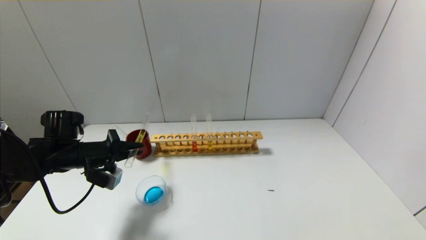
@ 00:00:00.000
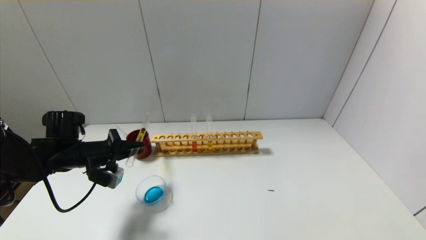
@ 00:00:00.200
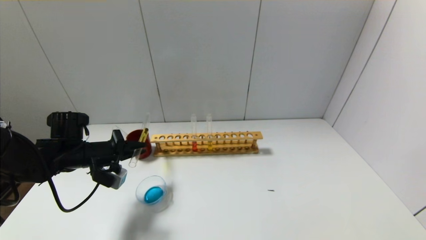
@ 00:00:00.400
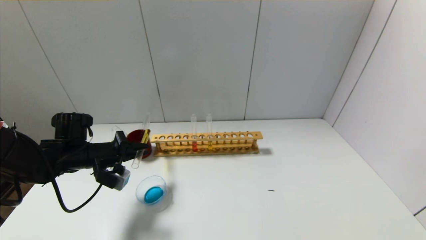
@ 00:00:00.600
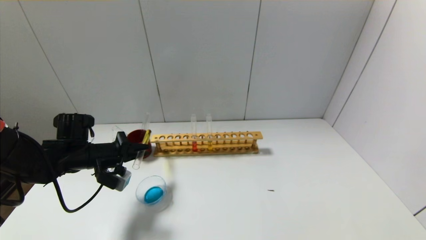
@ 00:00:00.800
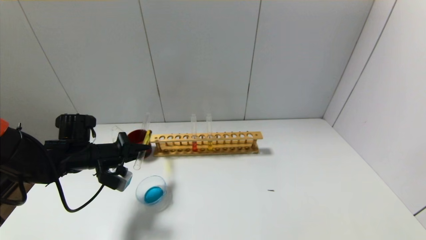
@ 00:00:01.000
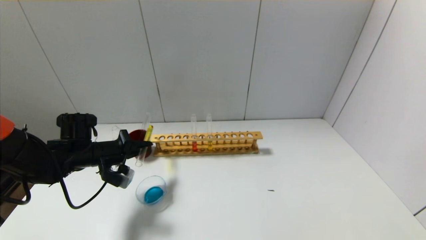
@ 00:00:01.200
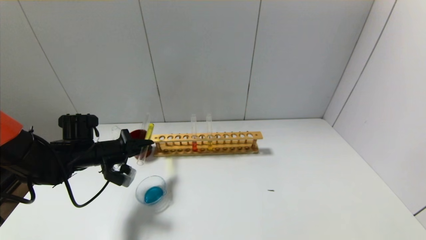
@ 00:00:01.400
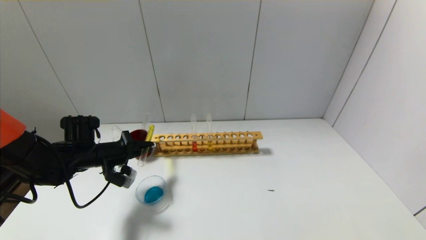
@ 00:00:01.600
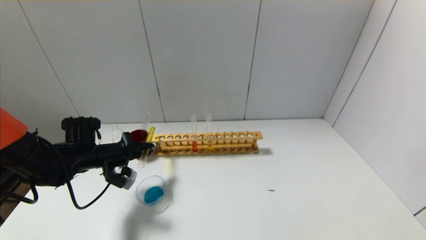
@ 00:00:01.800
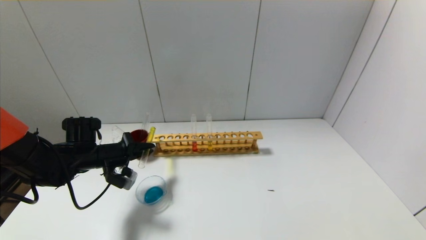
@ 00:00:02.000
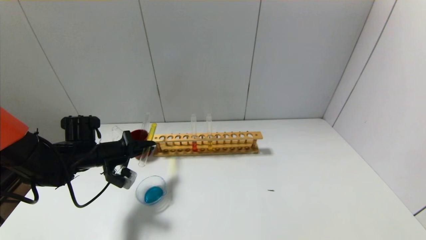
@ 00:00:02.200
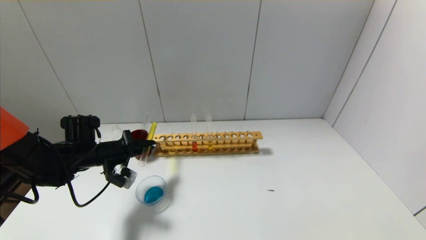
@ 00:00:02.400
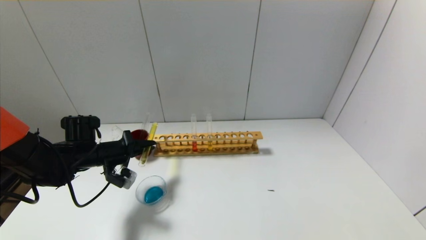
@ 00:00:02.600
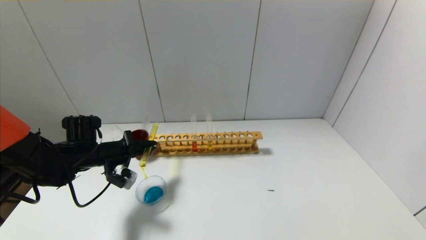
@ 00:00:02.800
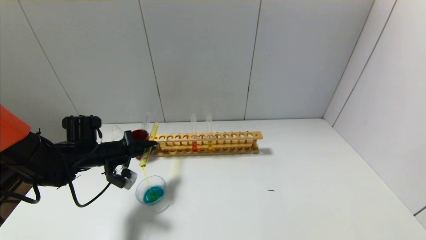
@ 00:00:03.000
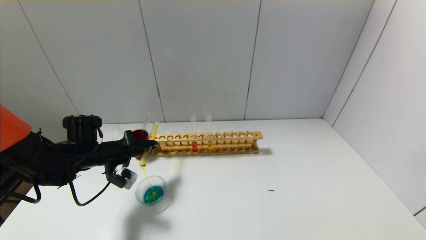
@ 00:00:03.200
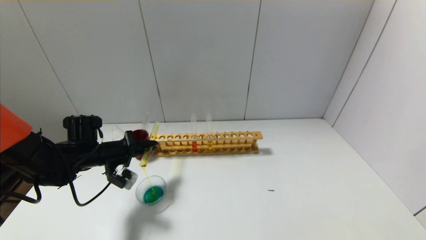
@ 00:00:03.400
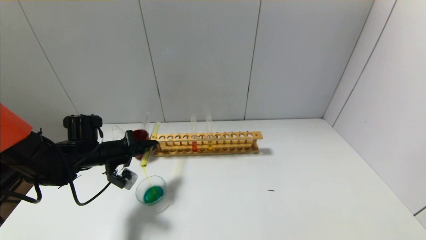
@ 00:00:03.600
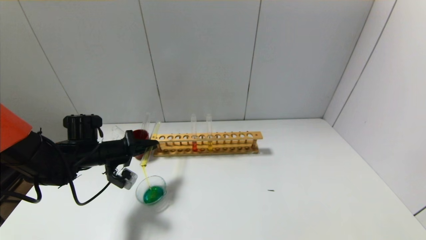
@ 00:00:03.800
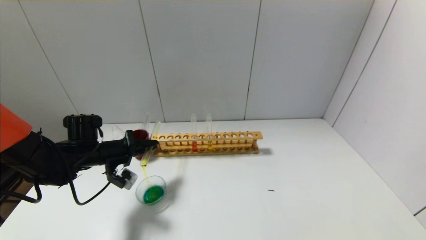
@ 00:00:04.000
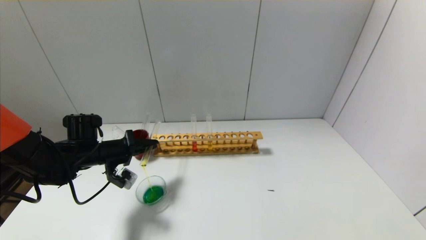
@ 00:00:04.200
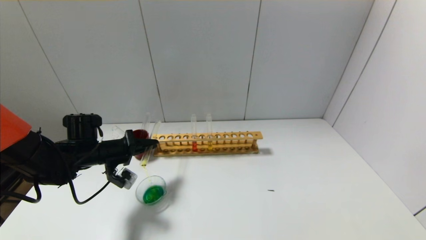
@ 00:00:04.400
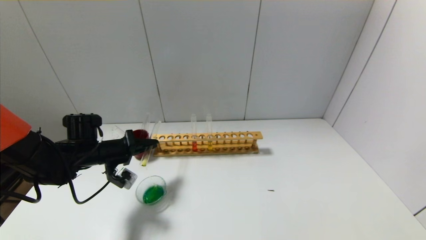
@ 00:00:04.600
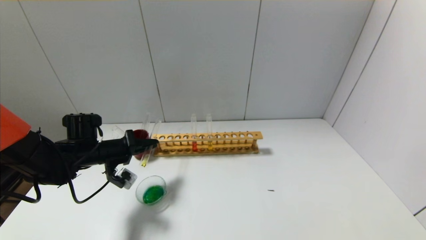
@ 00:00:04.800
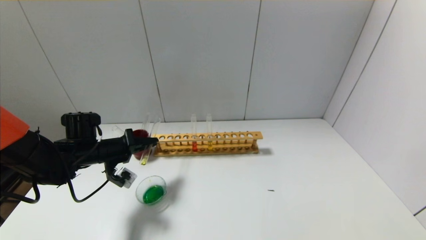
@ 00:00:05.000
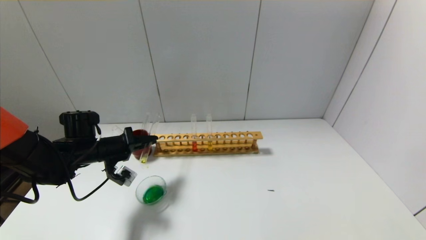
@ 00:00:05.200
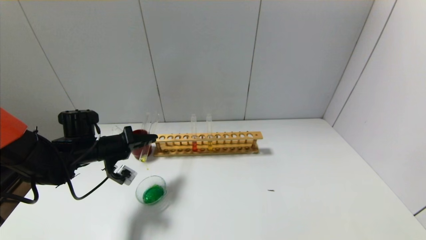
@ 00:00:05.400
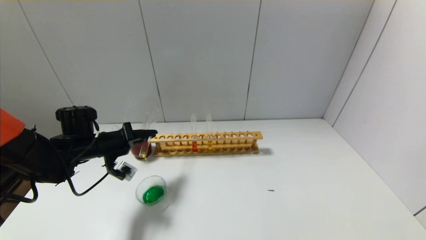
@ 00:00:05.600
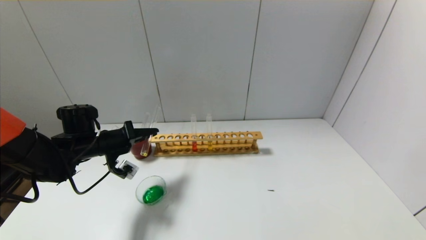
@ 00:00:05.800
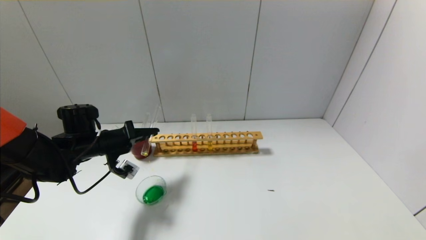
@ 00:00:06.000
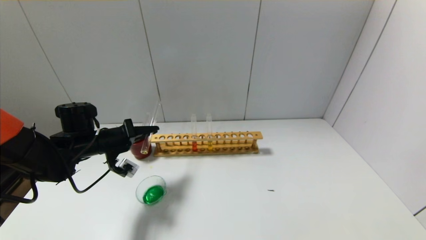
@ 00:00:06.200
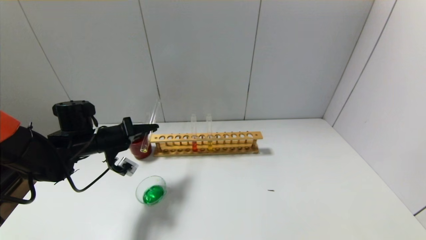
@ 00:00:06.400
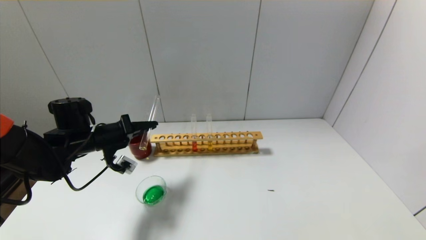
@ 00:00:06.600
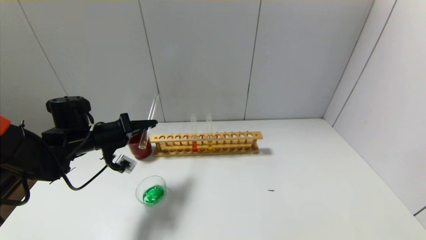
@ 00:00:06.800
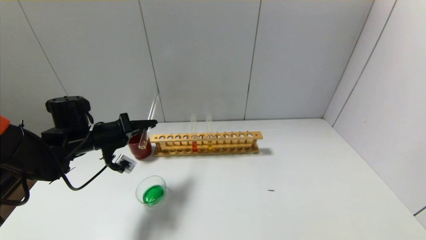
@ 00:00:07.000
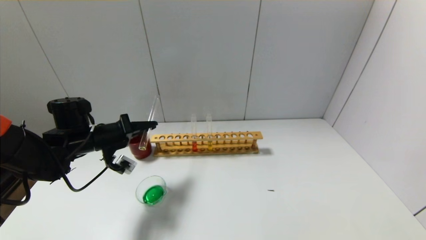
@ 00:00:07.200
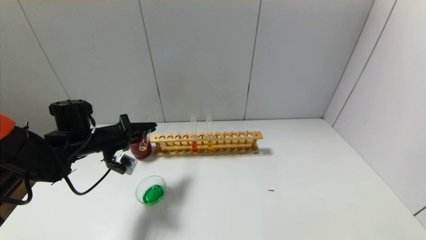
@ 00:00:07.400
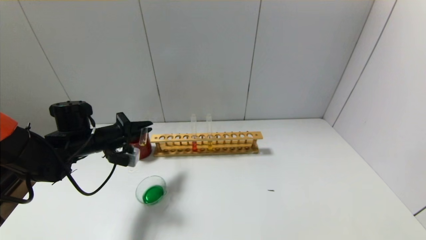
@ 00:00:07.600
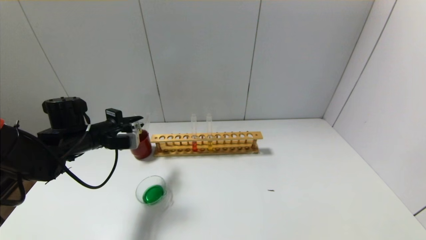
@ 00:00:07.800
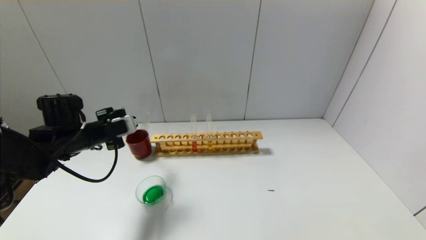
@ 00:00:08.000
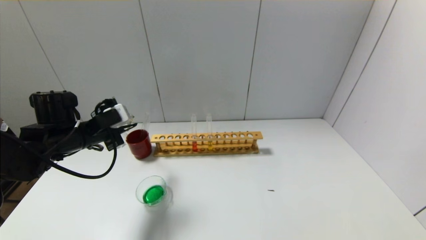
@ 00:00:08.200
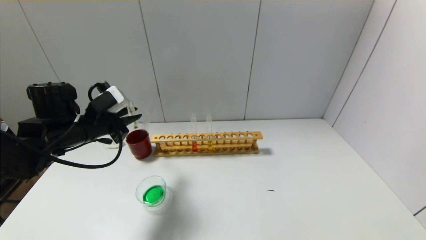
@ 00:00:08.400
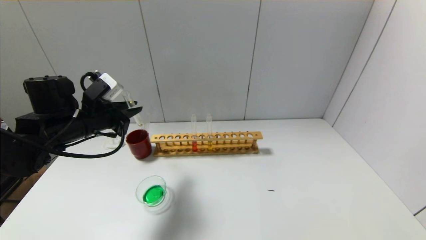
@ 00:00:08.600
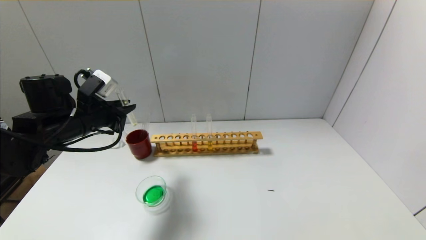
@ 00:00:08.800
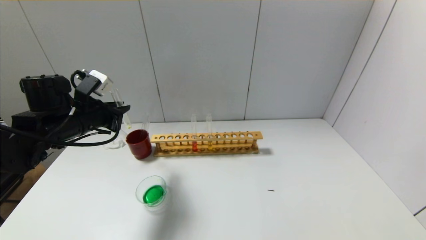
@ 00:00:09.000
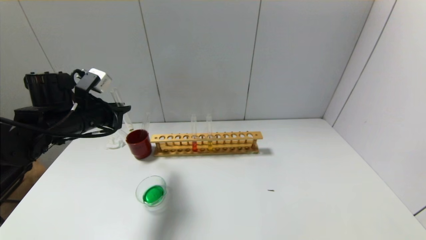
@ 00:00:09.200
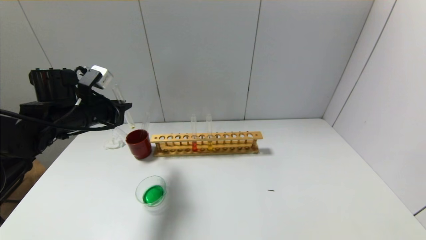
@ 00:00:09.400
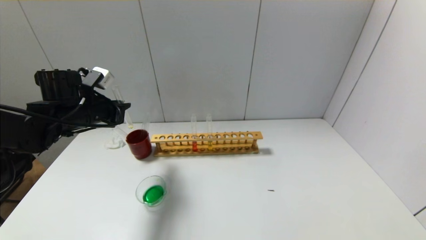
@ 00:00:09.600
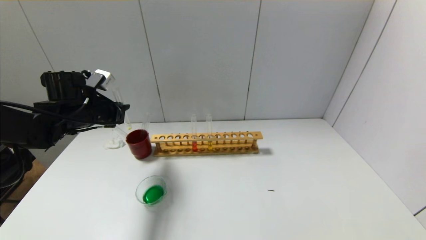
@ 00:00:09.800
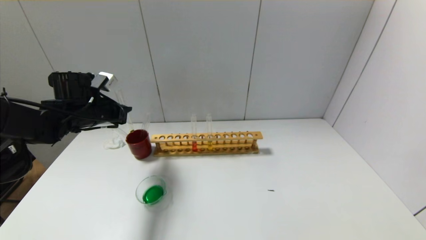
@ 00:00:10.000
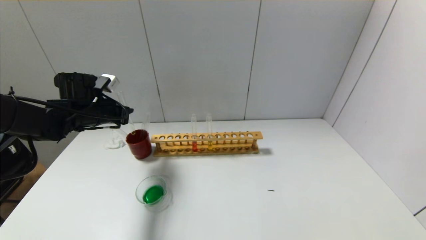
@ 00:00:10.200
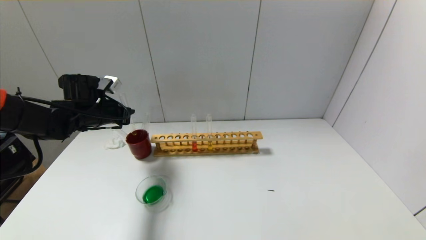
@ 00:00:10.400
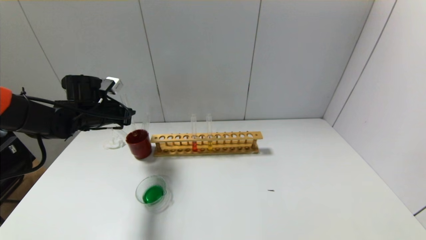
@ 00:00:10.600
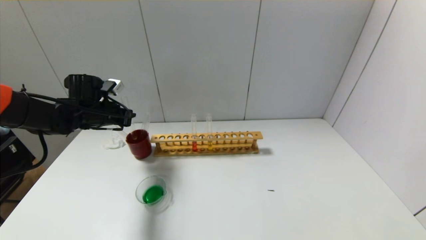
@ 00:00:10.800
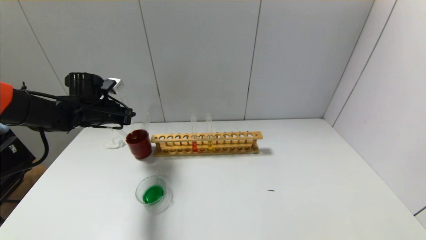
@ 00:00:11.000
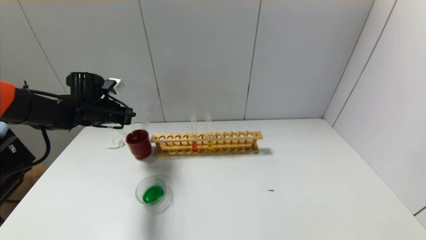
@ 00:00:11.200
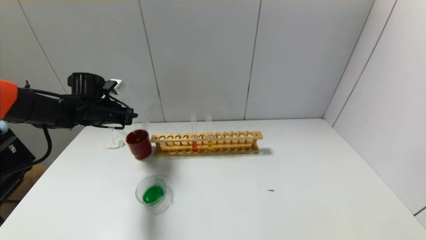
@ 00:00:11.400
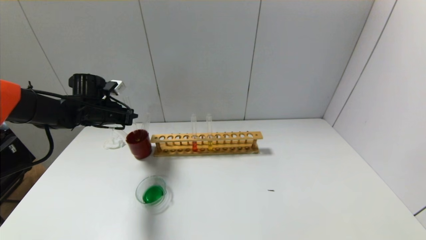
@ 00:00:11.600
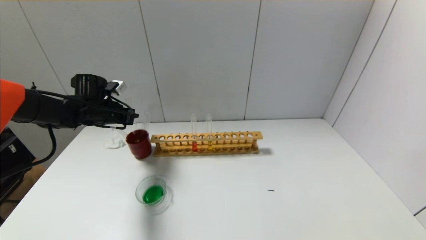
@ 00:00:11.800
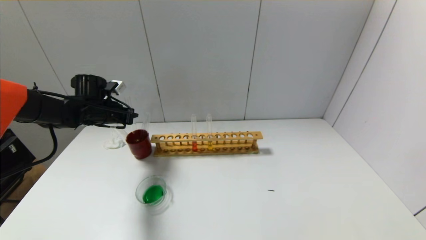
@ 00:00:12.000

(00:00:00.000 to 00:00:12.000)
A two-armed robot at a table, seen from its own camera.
Step, 00:00:00.000 - 00:00:07.600: Pour the yellow reagent into the graduated cylinder with the left gripper.
00:00:00.000 - 00:00:03.000: The grippers stay close to where they were, moving slightly.
00:00:03.000 - 00:00:06.000: The grippers make only small movements.
00:00:07.600 - 00:00:09.000: The left gripper moves upward, approximately 5 cm.
00:00:09.000 - 00:00:10.400: The left gripper shifts about 10 cm forward.
00:00:10.400 - 00:00:12.000: The grippers move only a little.

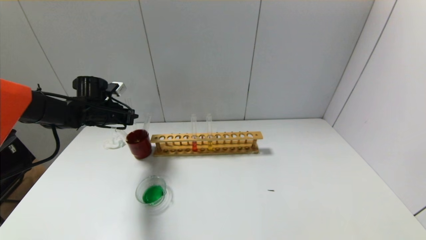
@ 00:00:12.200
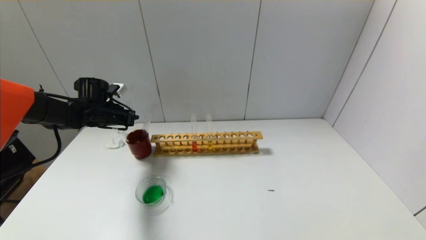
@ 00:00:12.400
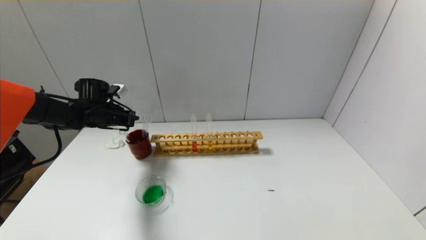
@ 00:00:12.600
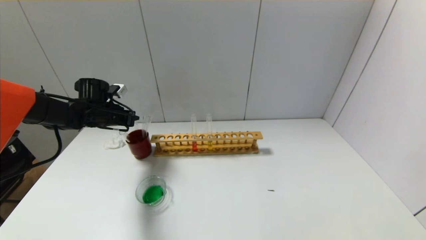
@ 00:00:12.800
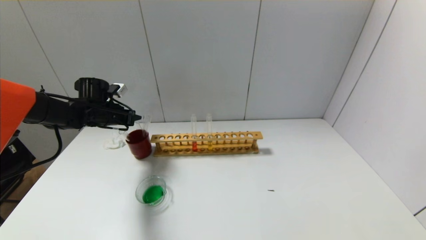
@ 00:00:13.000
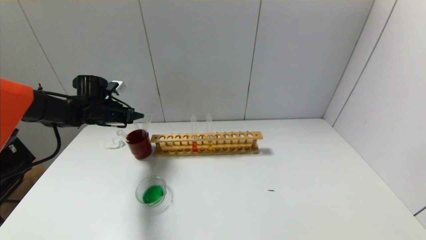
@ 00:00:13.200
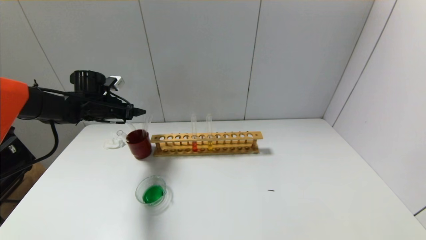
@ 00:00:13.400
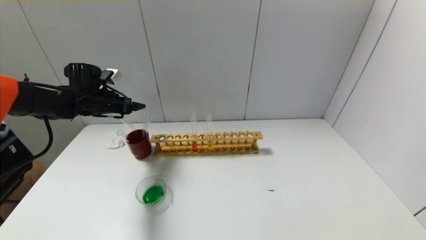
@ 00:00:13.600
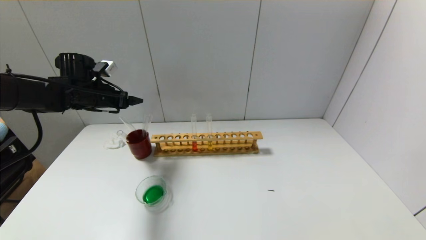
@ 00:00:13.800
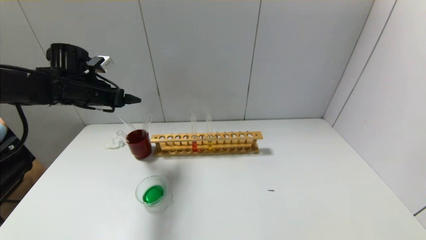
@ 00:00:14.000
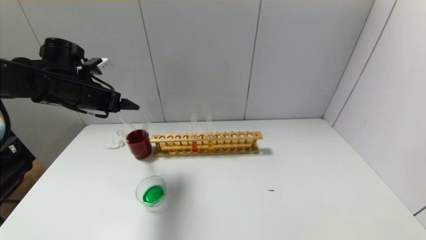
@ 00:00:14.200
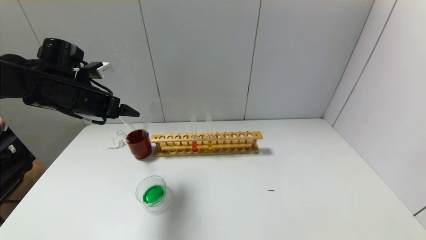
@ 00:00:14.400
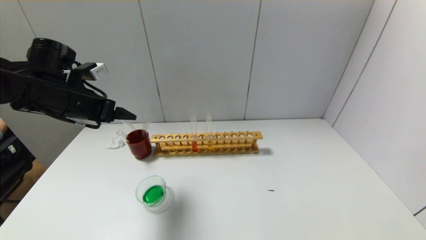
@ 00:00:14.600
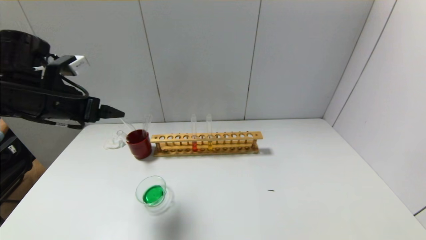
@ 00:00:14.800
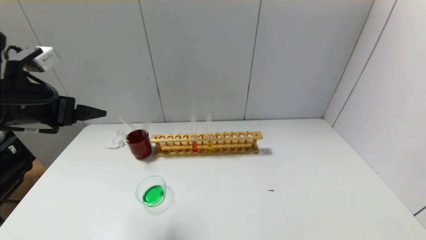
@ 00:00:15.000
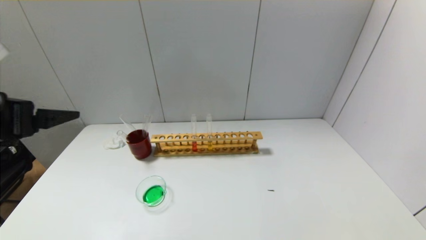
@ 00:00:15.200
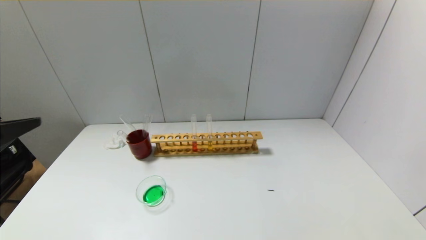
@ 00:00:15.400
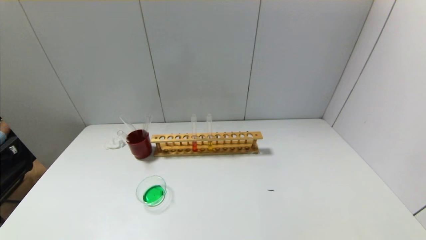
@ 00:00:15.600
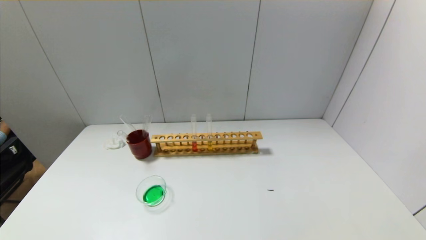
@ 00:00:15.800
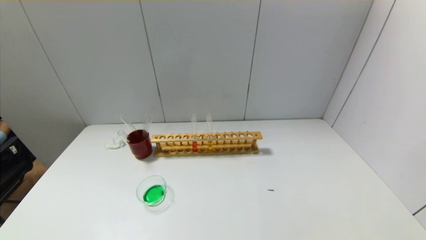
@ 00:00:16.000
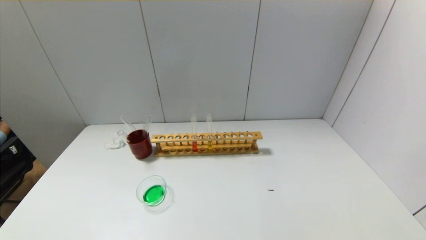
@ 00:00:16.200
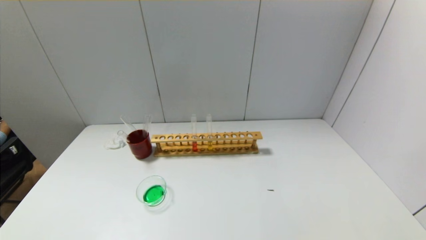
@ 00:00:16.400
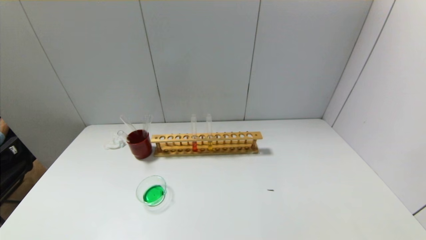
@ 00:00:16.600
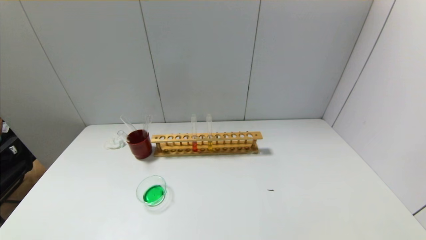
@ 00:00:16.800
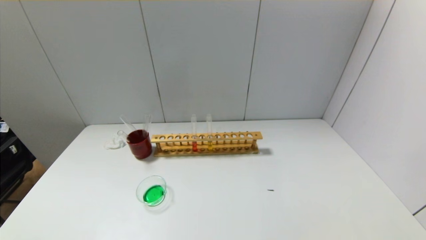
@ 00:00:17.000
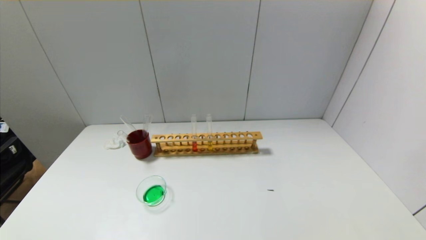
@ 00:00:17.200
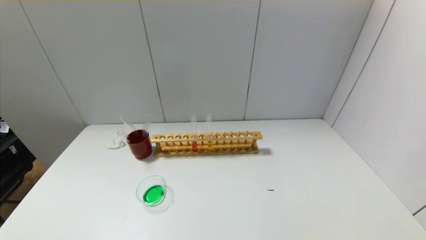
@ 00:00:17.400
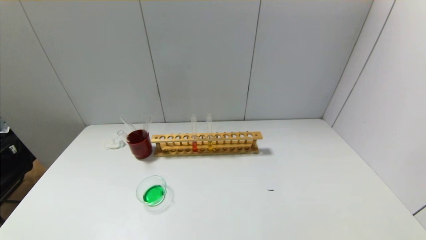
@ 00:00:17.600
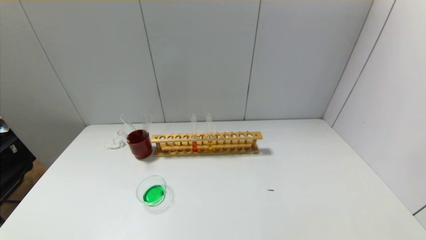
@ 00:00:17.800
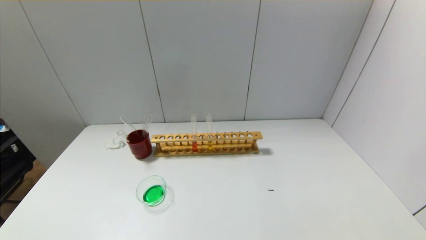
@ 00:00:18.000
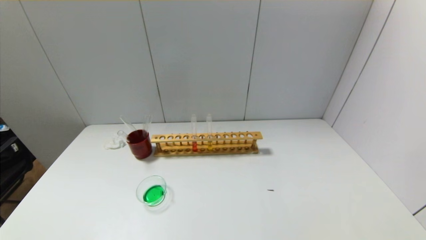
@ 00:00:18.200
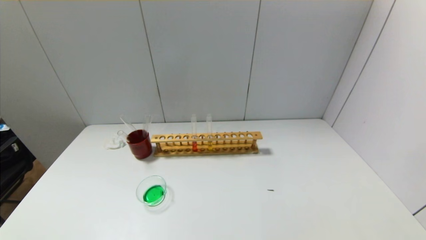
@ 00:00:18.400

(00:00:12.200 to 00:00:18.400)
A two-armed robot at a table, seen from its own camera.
00:00:12.200 - 00:00:13.800: The left gripper heads upward, covering some 5 cm, and opens.
00:00:13.800 - 00:00:15.400: The left gripper goes approximately 30 cm backward.
